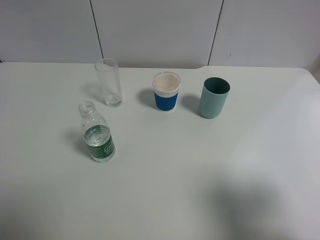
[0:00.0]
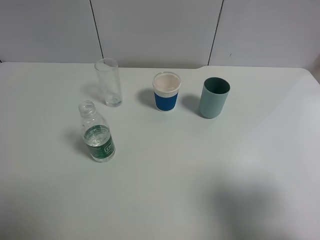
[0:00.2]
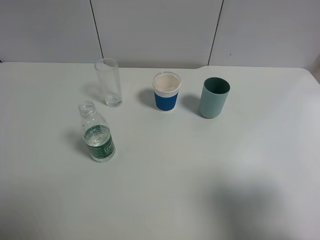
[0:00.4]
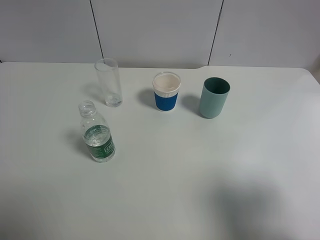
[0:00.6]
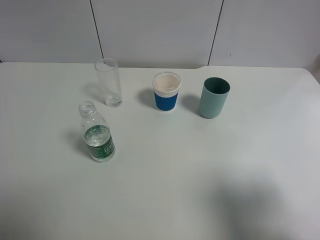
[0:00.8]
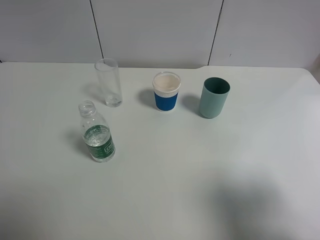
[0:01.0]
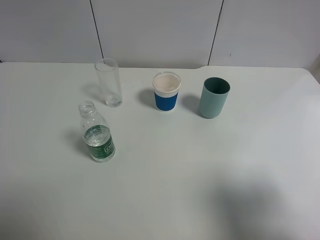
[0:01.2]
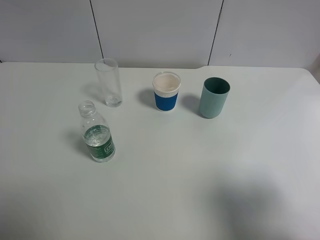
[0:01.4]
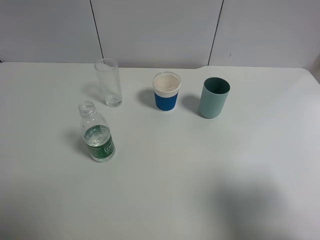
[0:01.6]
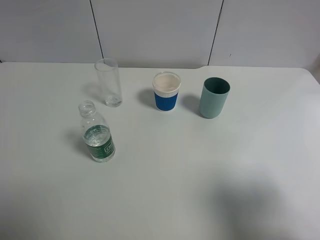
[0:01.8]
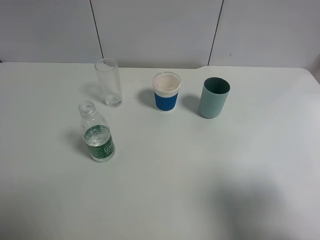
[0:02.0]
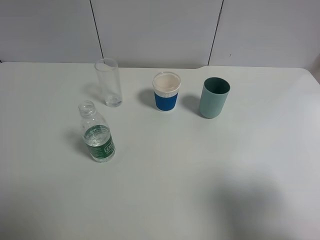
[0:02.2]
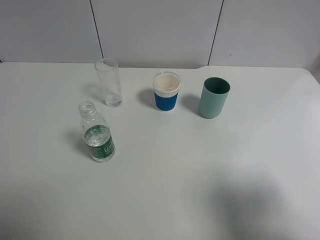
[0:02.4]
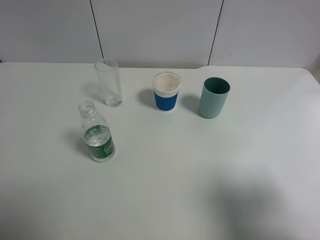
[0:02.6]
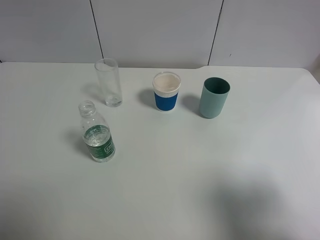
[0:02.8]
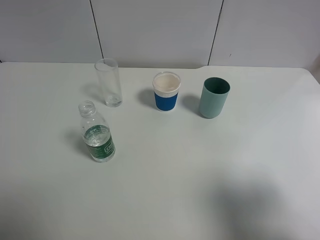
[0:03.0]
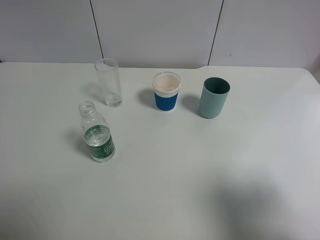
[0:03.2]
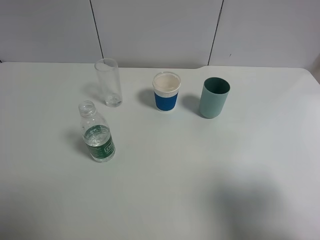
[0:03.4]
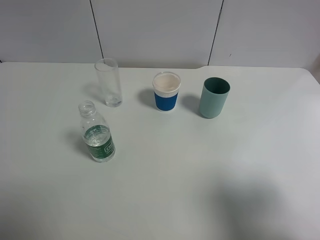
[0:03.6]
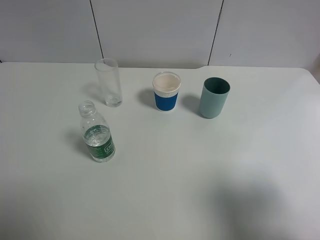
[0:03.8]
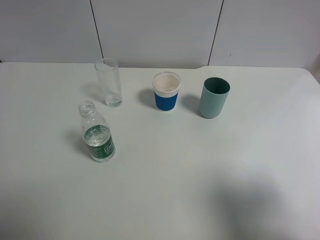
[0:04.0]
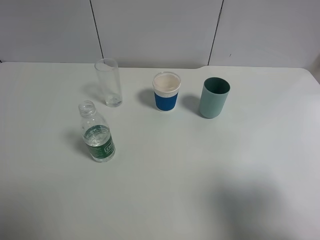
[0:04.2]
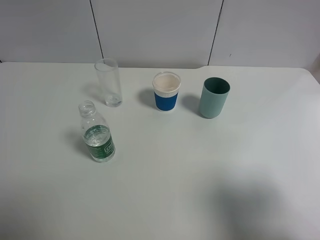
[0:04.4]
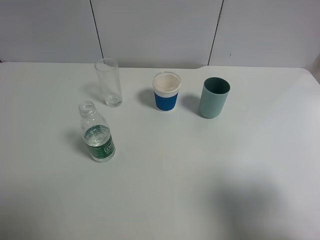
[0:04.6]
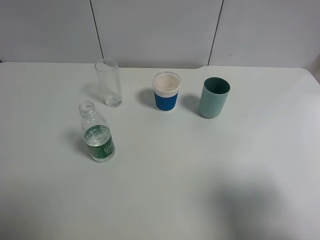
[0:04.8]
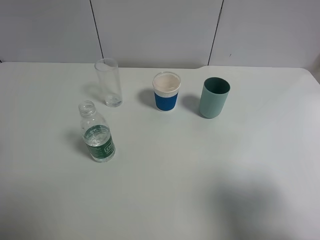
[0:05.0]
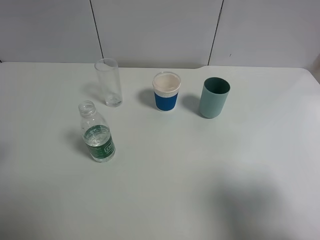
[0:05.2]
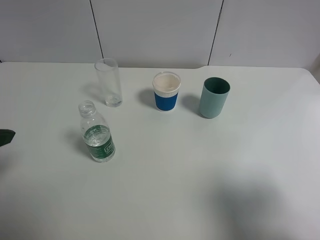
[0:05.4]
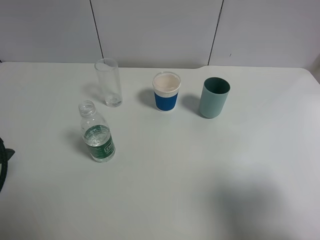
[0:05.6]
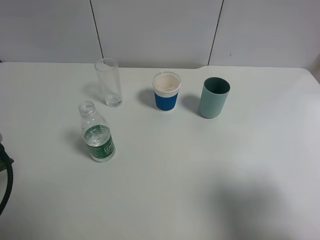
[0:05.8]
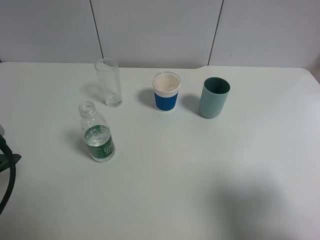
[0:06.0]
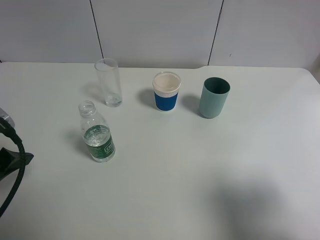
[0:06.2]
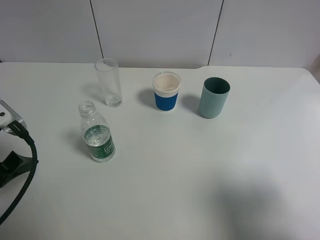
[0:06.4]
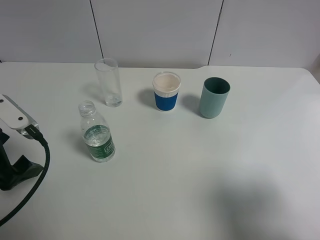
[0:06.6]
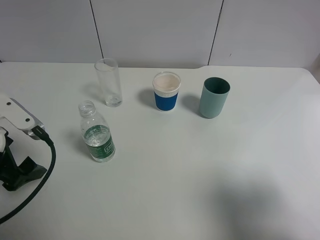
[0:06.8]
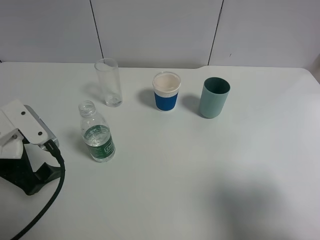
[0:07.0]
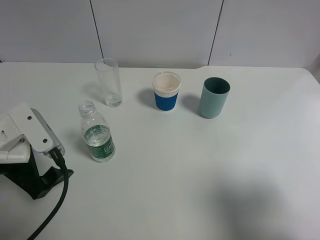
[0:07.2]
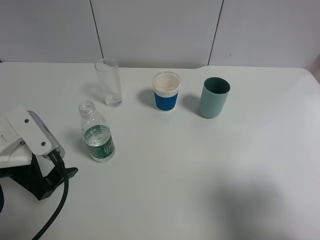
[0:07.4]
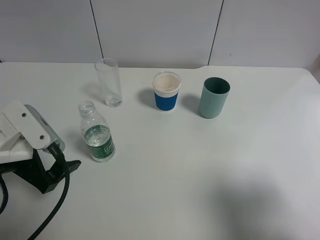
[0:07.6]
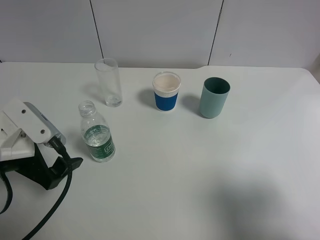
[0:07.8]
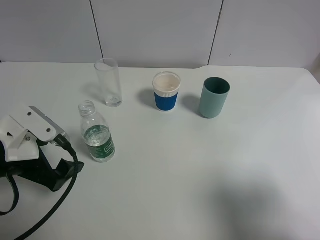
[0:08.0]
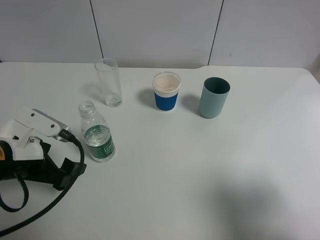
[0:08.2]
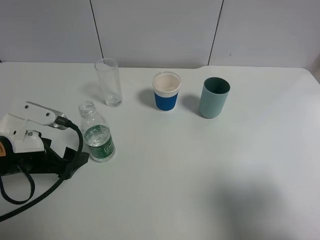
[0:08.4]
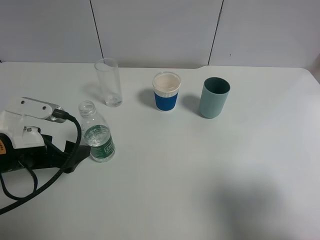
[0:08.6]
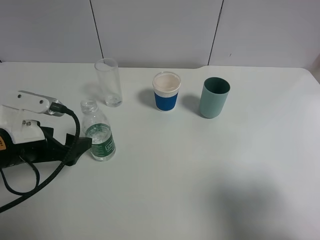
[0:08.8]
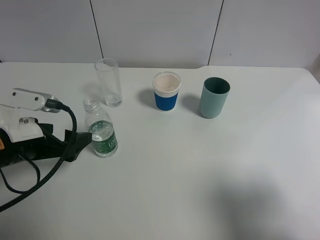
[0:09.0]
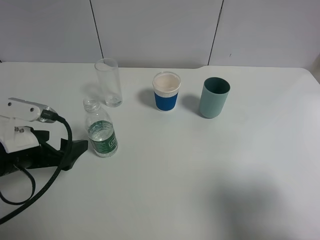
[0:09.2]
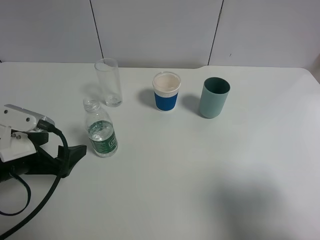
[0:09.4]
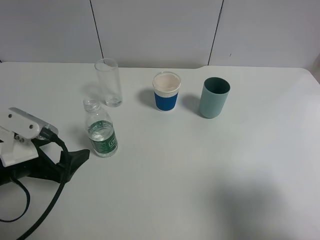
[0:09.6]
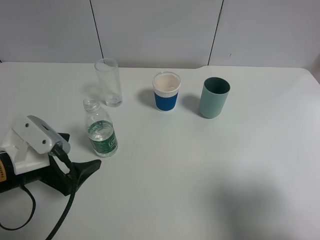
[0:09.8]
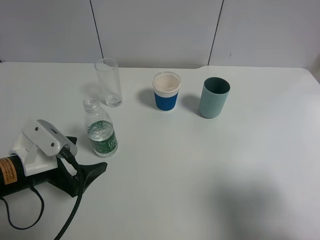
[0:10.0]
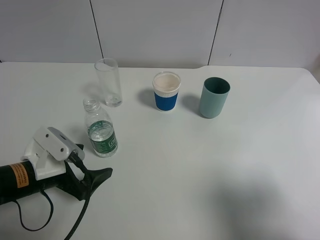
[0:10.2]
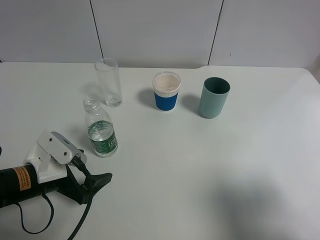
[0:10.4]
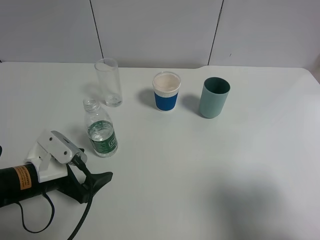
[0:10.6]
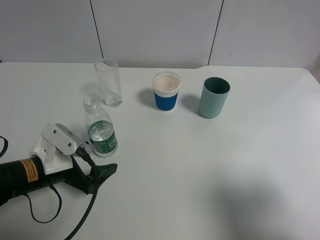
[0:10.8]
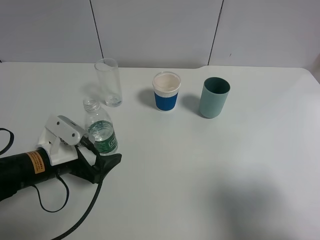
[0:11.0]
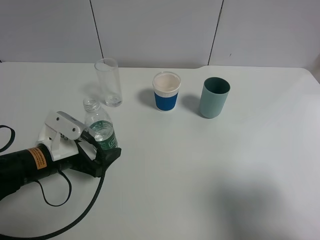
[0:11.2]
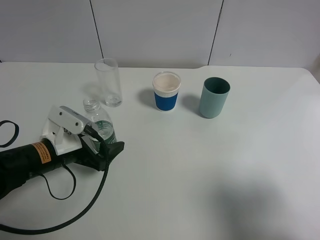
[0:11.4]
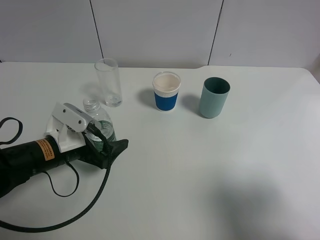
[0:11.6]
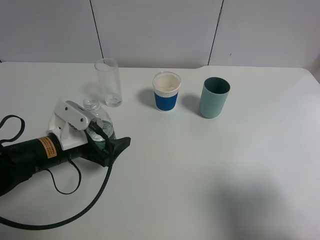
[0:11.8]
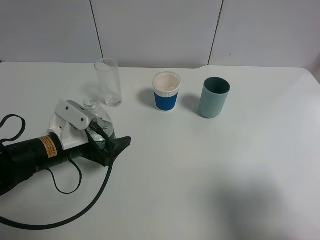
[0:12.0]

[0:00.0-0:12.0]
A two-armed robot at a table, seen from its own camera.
Task of the whole recording: use a gripper to hold the bottle of the drink and pour it into a random cup.
0:00.0 to 0:03.0: Both grippers stay about where they are.
0:04.4 to 0:06.0: The left gripper shifts some 10 cm downward and forward.
0:06.0 to 0:07.6: The left gripper heads downward and to the right, covering some 10 cm.
0:09.0 to 0:10.4: The left gripper travels downward by some 5 cm.
0:10.4 to 0:12.0: The left gripper moves forward, approximately 5 cm.

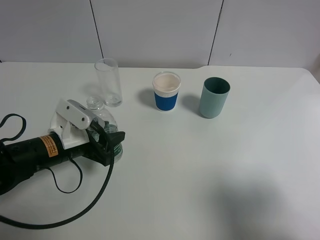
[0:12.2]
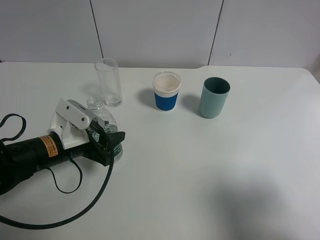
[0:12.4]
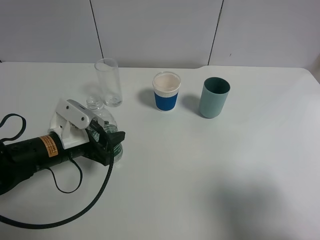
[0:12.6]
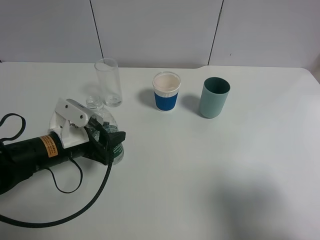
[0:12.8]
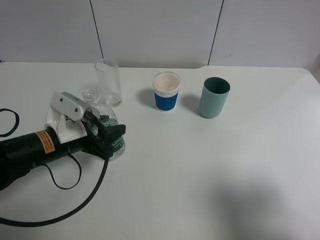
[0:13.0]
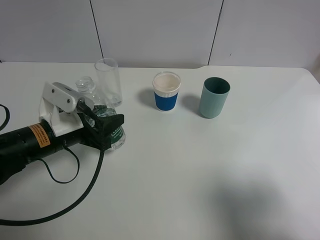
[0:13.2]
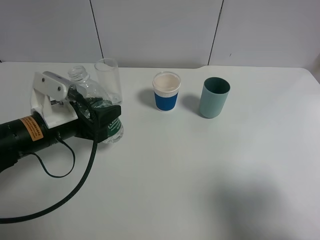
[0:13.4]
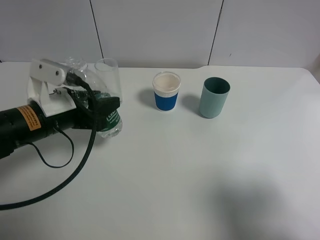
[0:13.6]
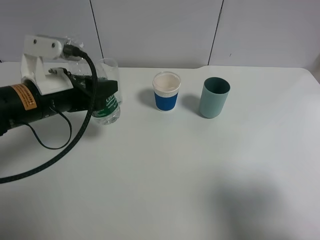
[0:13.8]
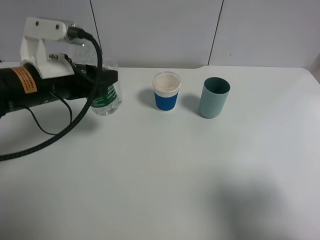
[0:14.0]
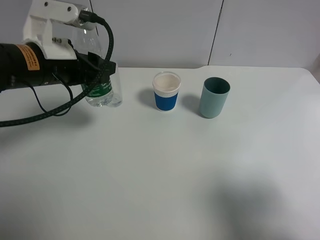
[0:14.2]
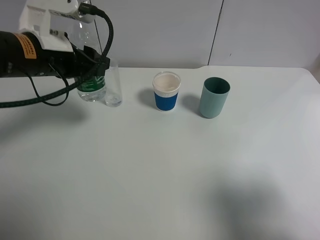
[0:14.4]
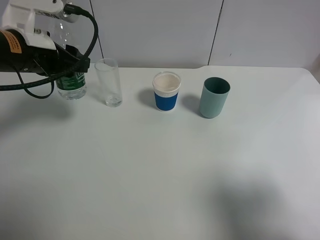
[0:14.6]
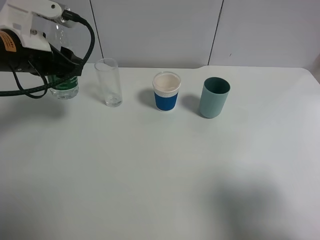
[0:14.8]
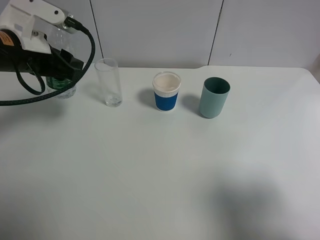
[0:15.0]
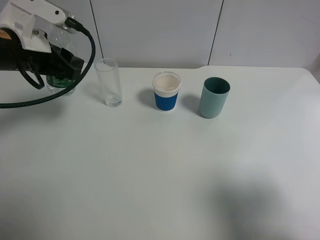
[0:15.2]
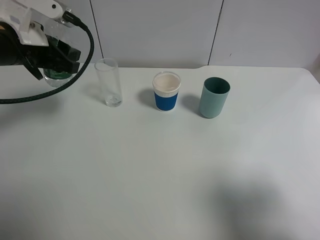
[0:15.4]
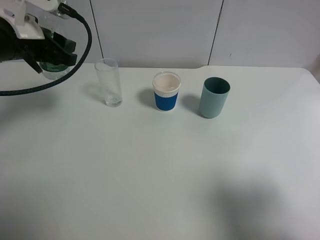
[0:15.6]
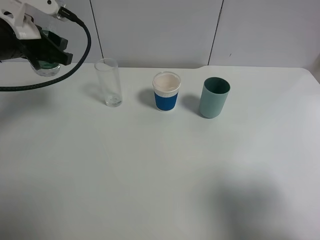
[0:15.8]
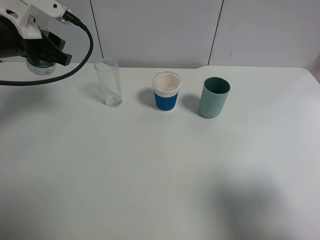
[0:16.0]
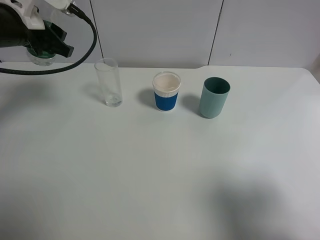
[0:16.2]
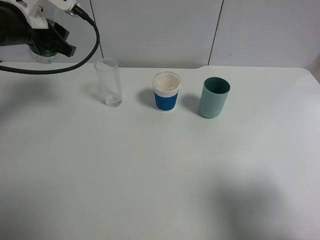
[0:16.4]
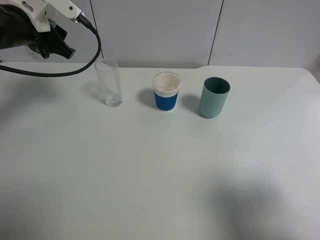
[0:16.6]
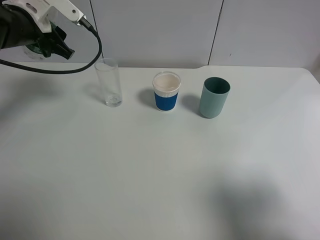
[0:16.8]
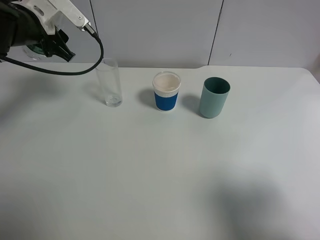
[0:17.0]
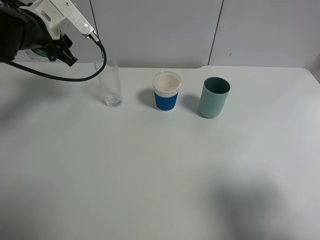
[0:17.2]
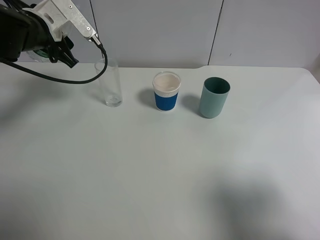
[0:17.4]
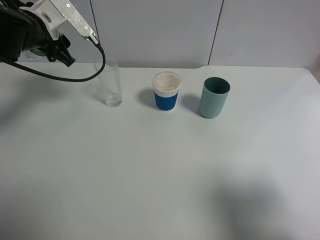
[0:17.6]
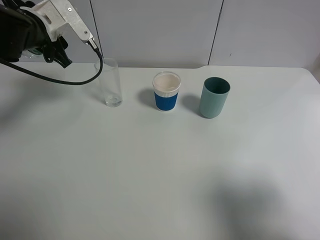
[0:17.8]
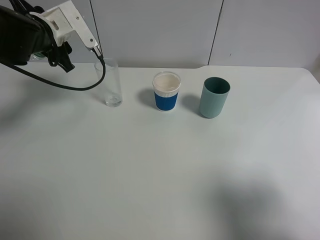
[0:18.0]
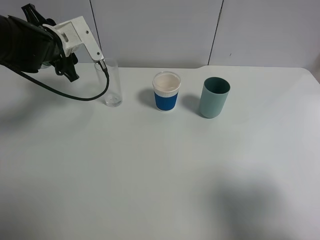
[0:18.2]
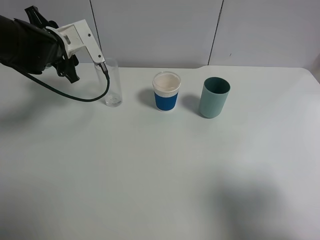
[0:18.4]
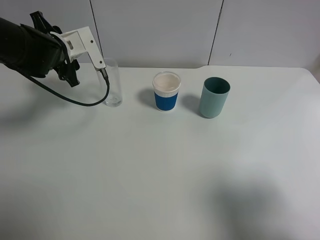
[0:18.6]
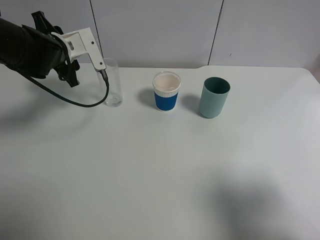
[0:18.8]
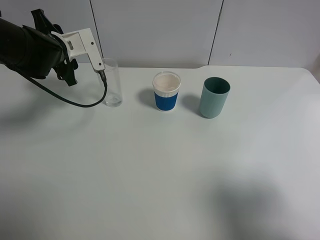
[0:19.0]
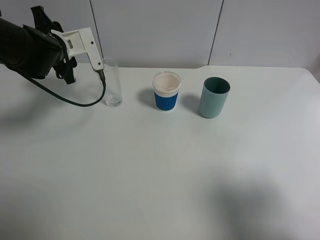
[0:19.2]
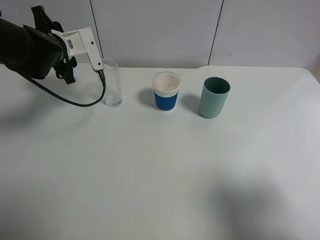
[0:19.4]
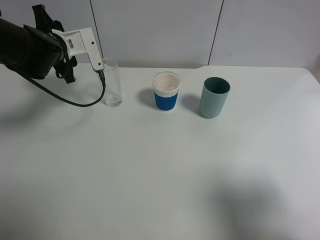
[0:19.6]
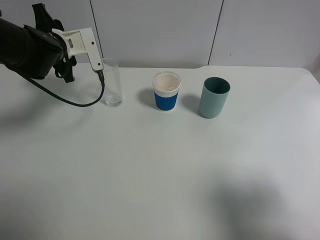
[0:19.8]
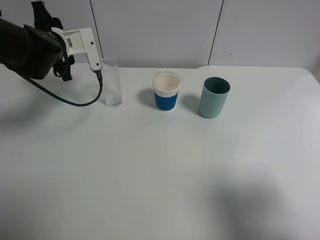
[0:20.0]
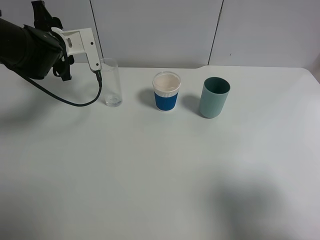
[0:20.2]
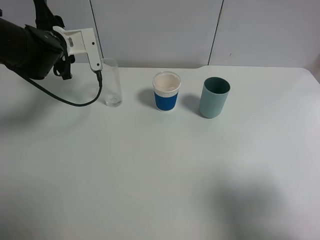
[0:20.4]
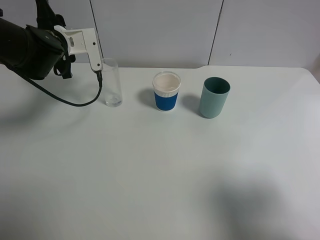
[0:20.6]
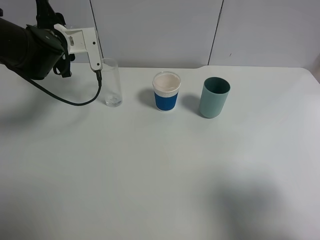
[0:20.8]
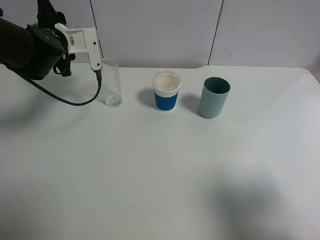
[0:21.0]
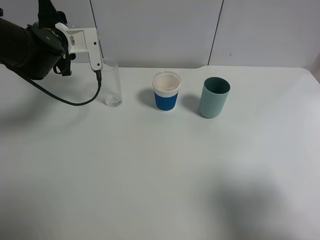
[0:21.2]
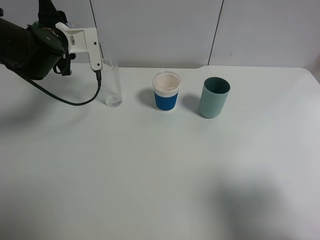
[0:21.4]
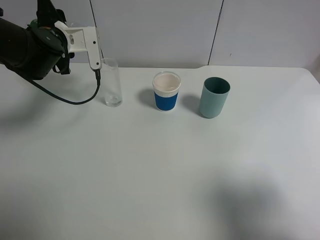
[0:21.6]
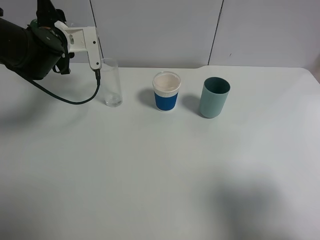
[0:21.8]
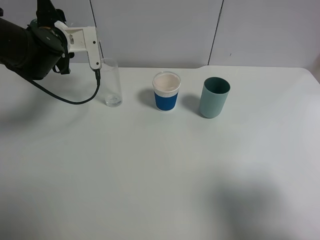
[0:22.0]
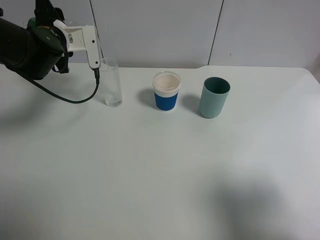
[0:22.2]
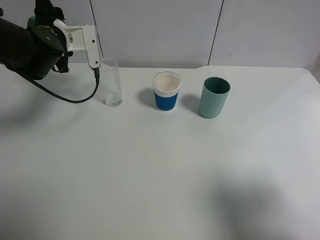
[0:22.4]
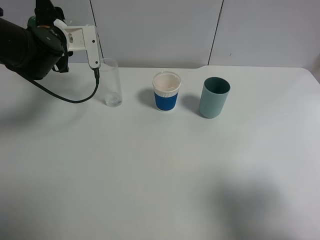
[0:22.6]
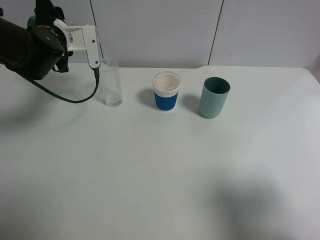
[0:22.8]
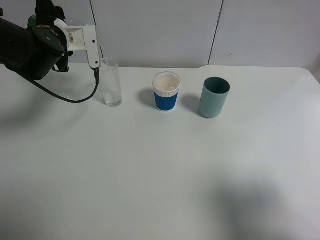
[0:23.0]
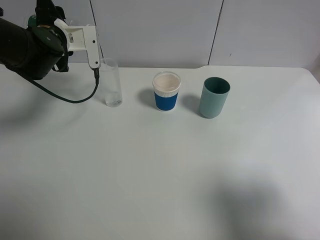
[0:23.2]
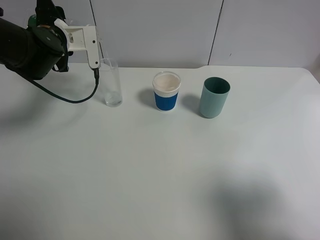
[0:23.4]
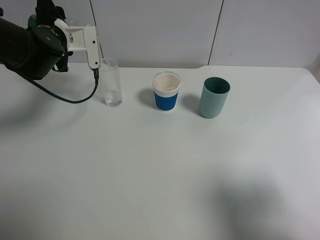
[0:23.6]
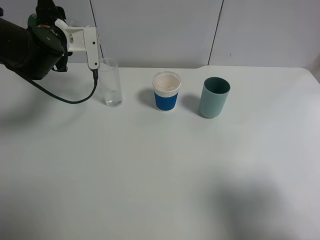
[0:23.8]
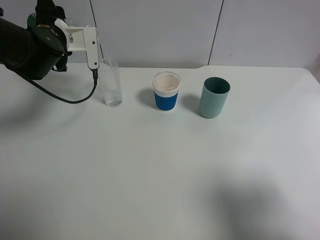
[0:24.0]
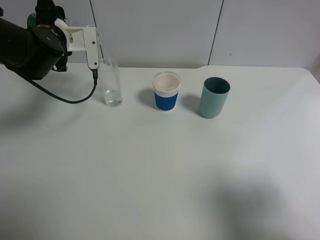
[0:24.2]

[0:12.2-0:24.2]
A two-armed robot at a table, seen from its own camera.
Task of the whole recording: use a gripper to hold the bottle of the drink and pour it into a random cup.
0:12.2 to 0:13.8: The left gripper goes some 10 cm upward.
0:13.8 to 0:15.2: The left gripper shifts roughly 5 cm forward.
0:15.2 to 0:16.6: The left gripper moves forward, roughly 5 cm.
0:16.6 to 0:18.2: The left gripper moves approximately 5 cm.
0:18.2 to 0:19.8: There are only small adjustments of the grippers.
0:19.8 to 0:21.2: The grippers move only a little.
0:21.2 to 0:22.6: Both grippers stay put.
0:22.6 to 0:24.2: The two grippers keep their place.
